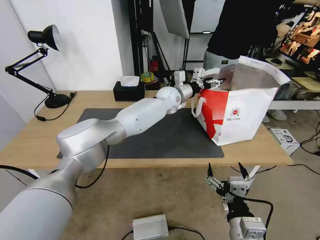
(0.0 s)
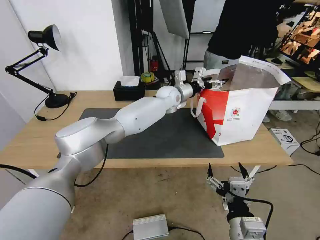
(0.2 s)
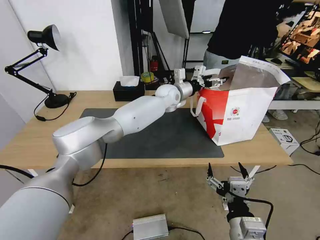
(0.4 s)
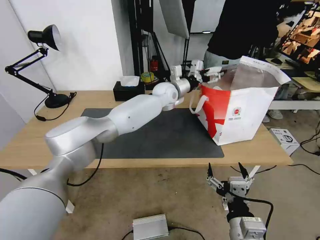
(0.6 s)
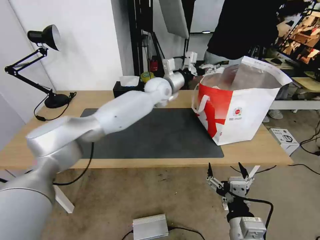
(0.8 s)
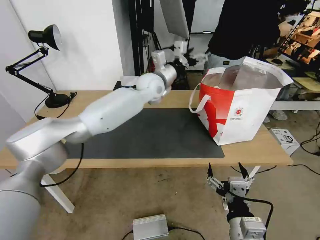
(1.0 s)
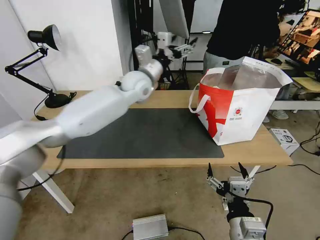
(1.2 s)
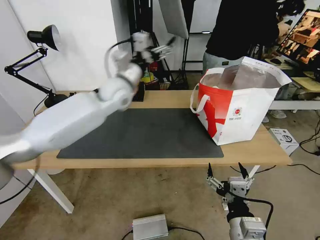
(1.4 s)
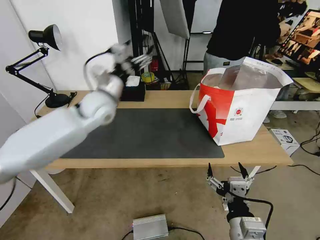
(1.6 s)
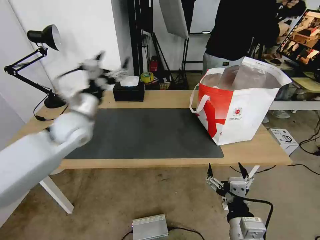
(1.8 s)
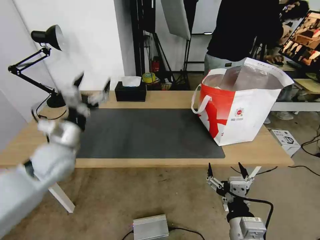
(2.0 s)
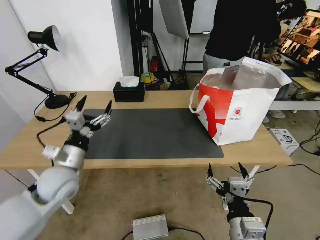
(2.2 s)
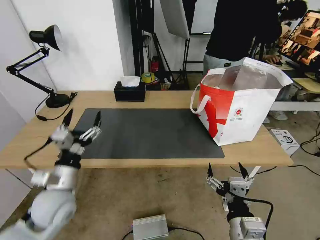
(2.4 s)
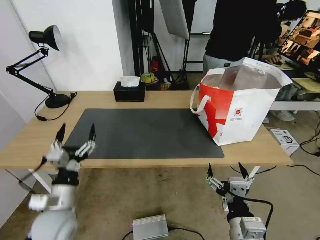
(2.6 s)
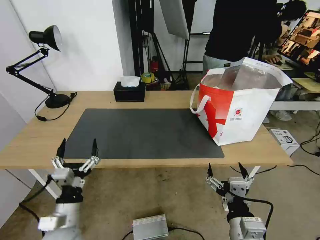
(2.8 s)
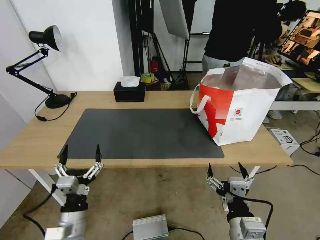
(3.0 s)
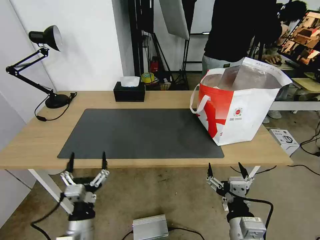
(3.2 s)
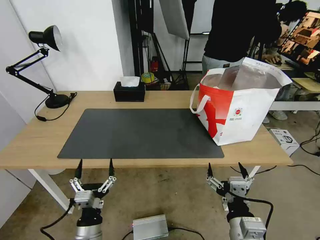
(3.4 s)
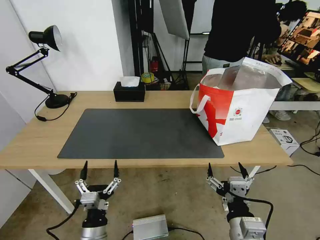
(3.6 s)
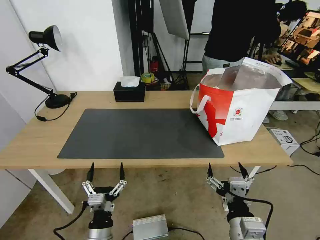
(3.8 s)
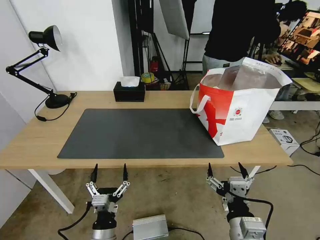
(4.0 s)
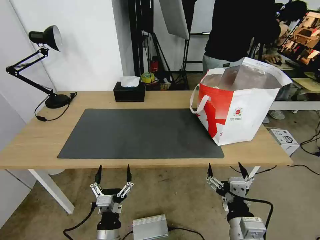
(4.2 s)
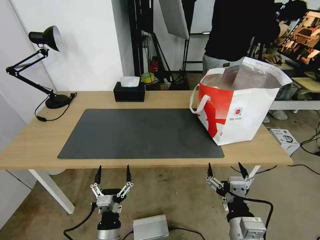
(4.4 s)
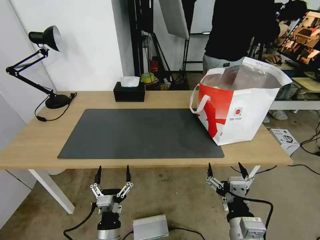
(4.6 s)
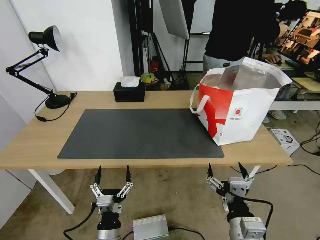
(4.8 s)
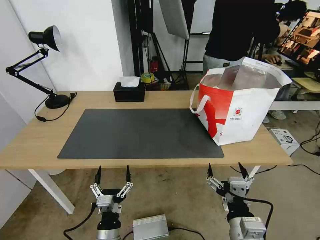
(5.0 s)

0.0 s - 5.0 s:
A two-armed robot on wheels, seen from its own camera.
Task of the whole recording: Pick up the trash from the table and place it into the takeout bag.
0.0 s - 1.6 s: The left gripper shifts some 25 cm to the left and backward.
1.6 s - 3.4 s: The left gripper shifts approximately 40 cm backward and downward.
3.4 s - 5.0 s: The left gripper shifts about 5 cm to the right.
